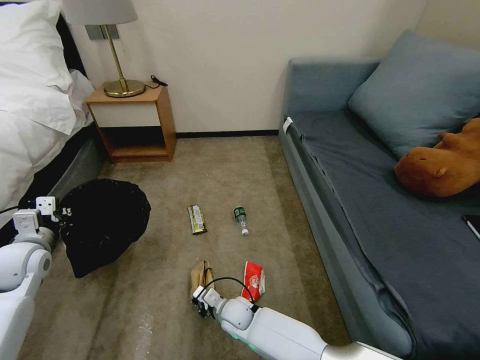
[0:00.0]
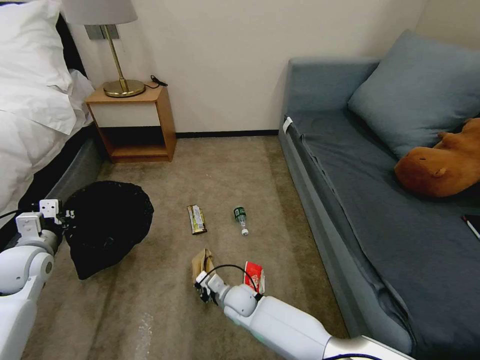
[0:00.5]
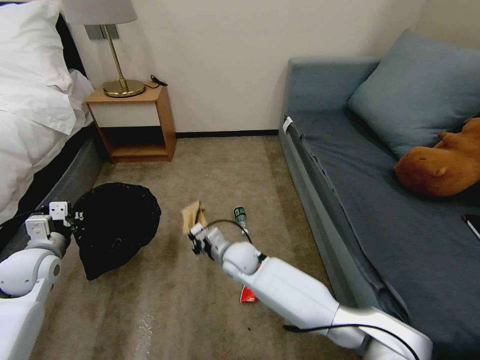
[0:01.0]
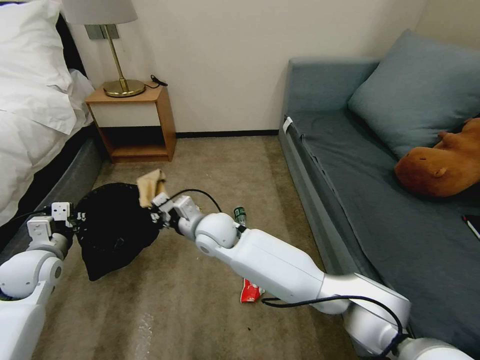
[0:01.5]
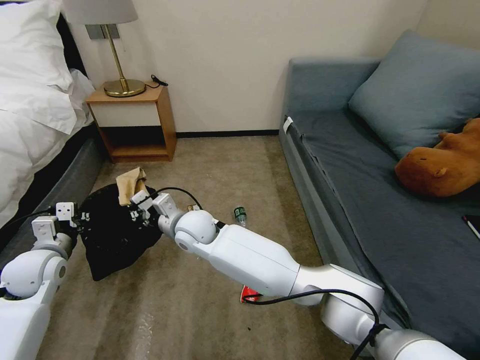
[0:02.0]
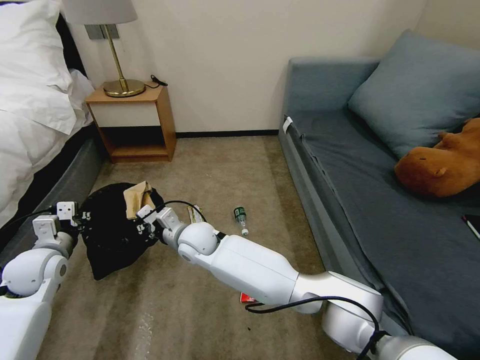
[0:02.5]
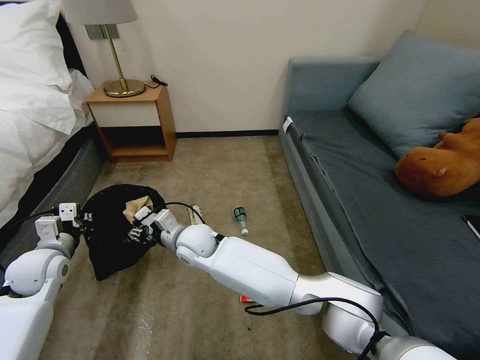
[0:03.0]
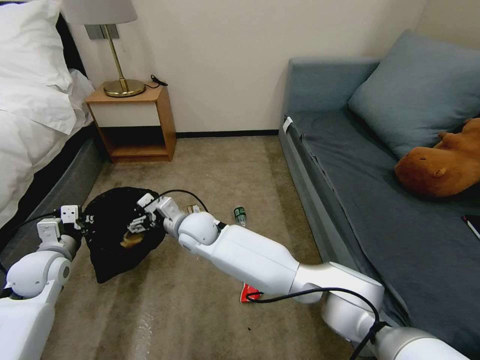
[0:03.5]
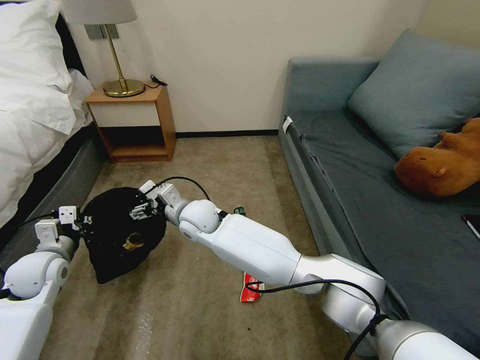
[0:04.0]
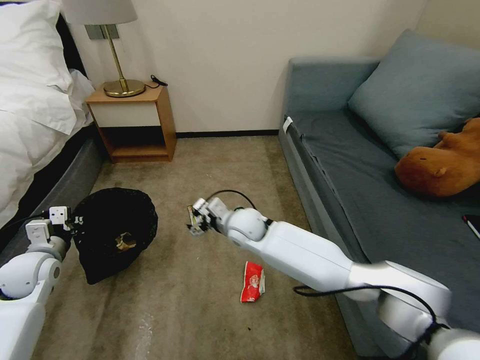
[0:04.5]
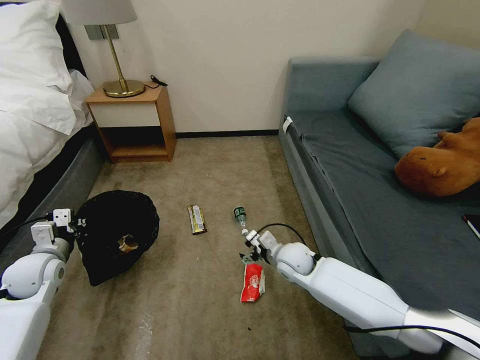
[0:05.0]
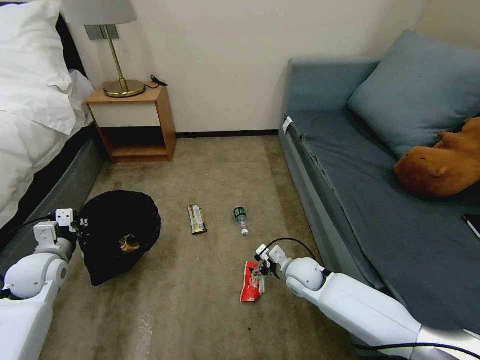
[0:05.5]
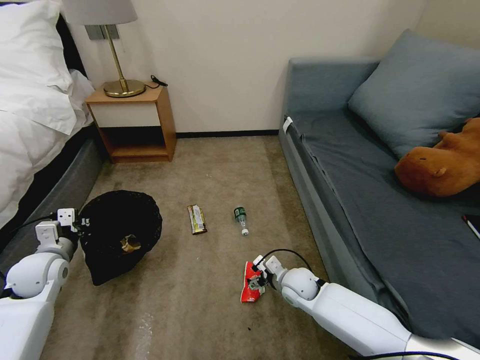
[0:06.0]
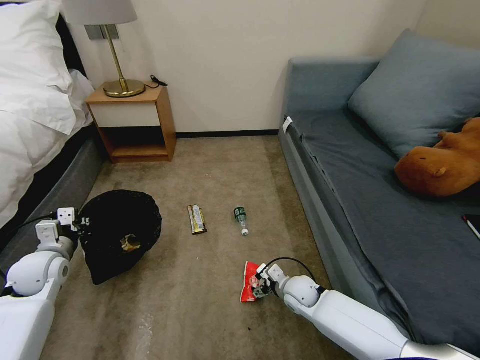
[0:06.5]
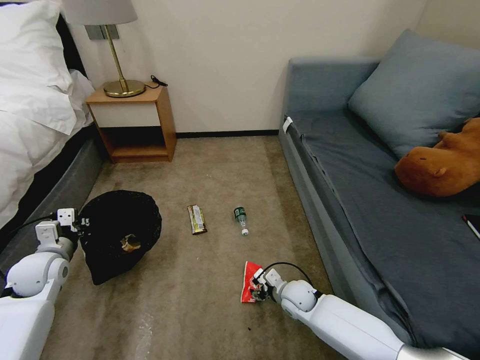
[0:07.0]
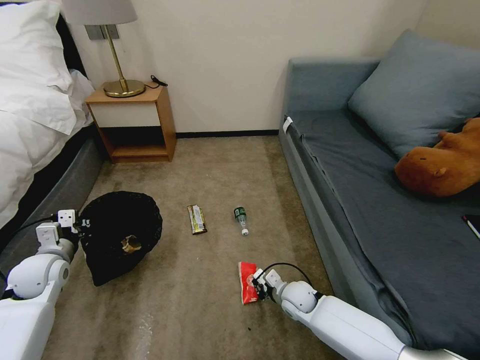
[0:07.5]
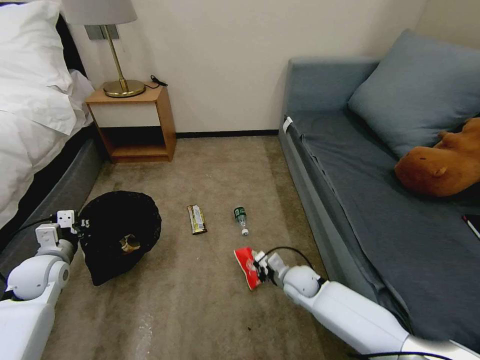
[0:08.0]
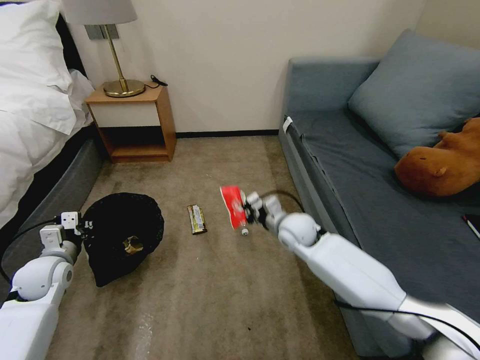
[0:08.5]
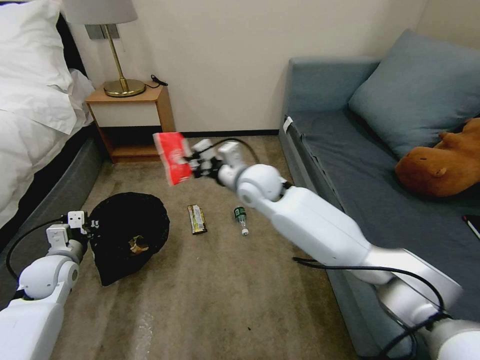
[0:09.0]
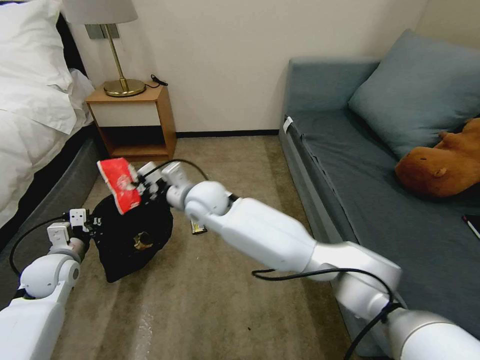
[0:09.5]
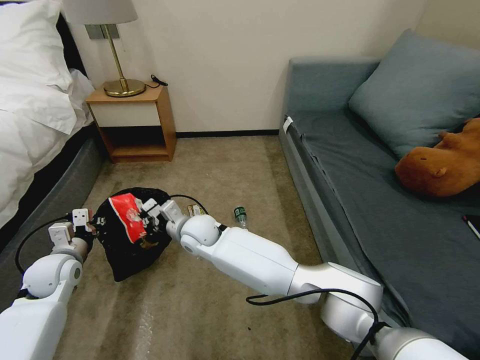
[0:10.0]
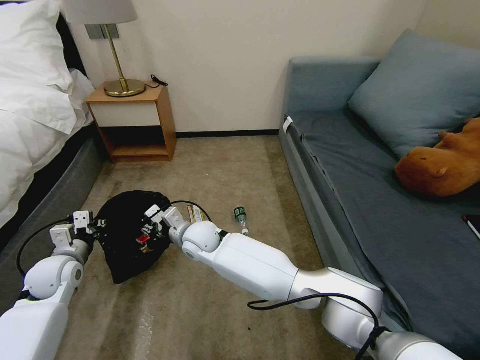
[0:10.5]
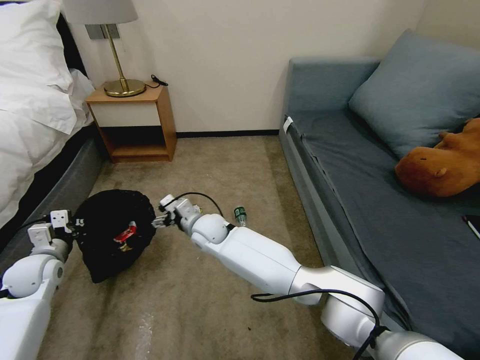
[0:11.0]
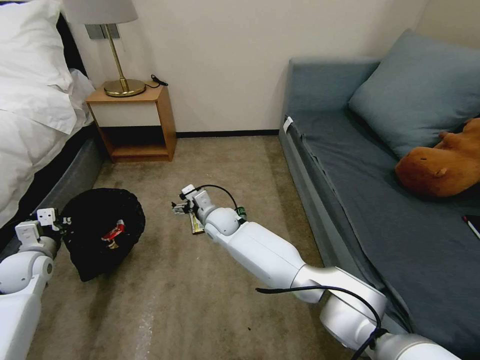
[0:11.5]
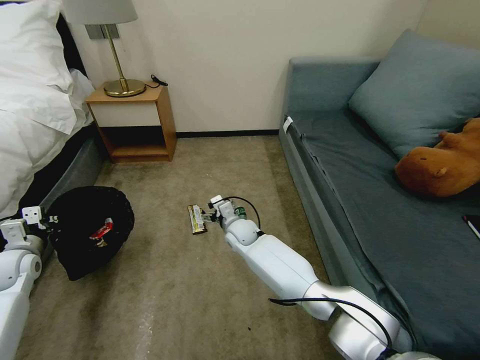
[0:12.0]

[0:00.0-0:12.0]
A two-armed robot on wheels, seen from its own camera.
Task of the whole recording: Pick up the trash bin, then pick up the garbage on the floor and place it into the trash bin.
0:00.0 to 0:02.0: The right gripper heads upward, forward and to the left, covering roughly 30 cm.
0:02.0 to 0:04.0: The right gripper opens its fingers.
0:04.0 to 0:06.0: The right gripper goes some 35 cm to the right and downward.
0:06.0 to 0:08.0: The right gripper closes up.
0:08.0 to 0:10.0: The right gripper goes approximately 30 cm to the left and upward.
0:10.0 to 0:12.0: The right gripper moves to the right, downward and forward, roughly 15 cm, and opens up, while the left gripper travels to the left by some 10 cm.

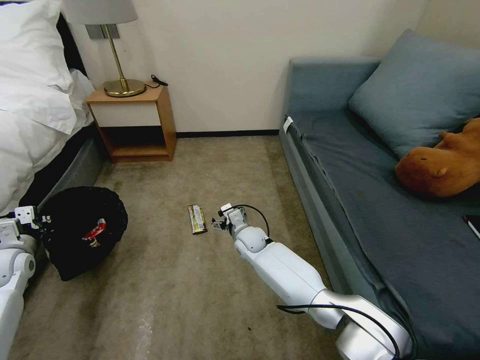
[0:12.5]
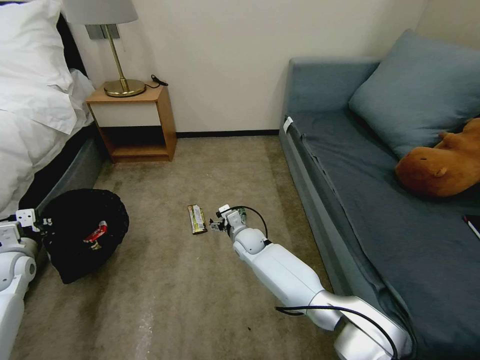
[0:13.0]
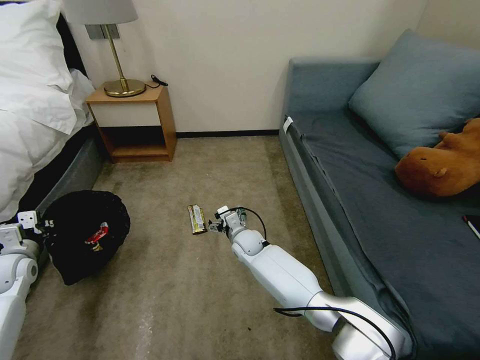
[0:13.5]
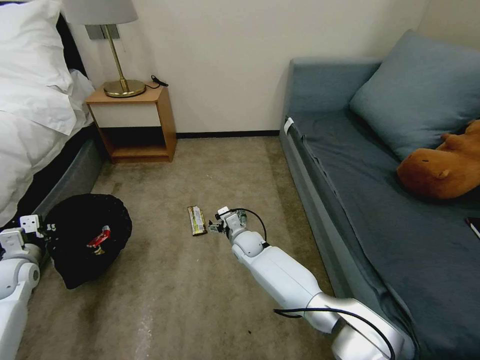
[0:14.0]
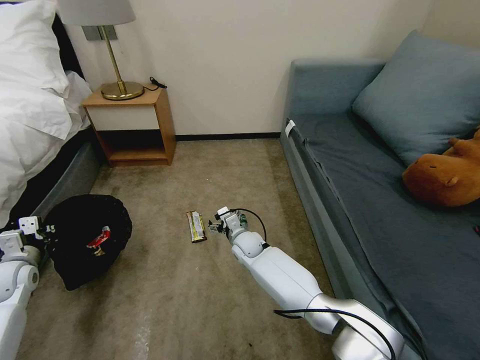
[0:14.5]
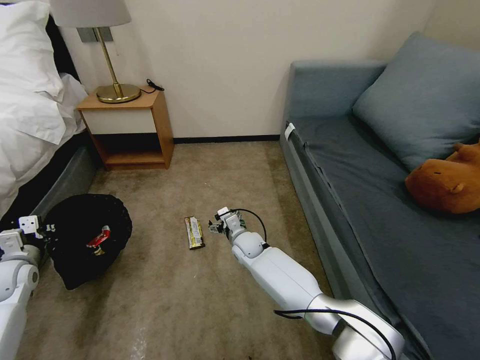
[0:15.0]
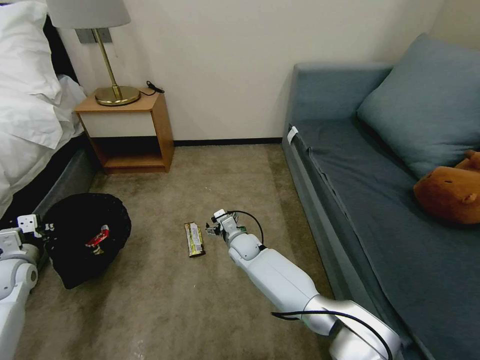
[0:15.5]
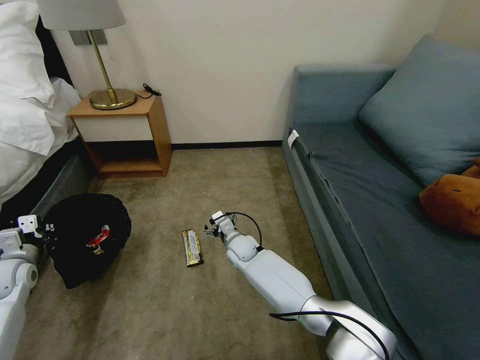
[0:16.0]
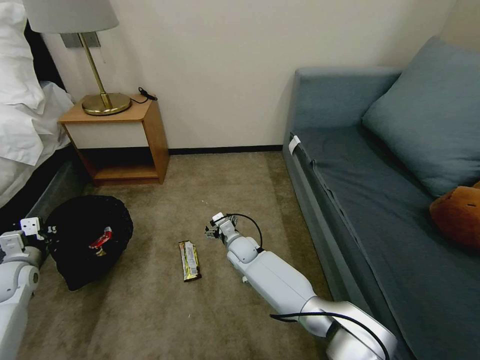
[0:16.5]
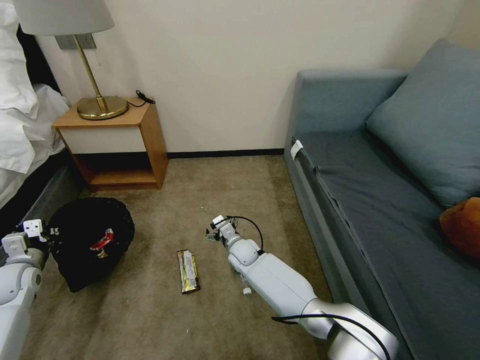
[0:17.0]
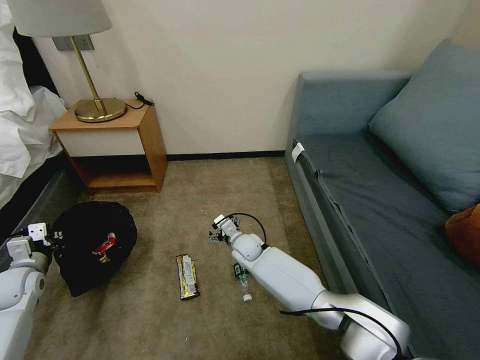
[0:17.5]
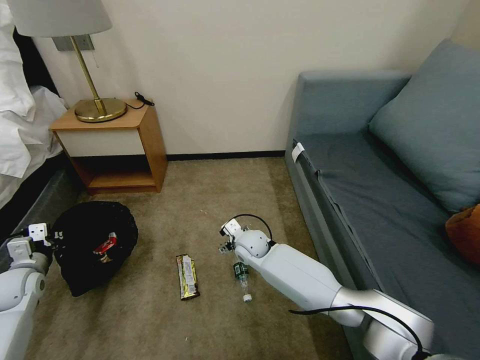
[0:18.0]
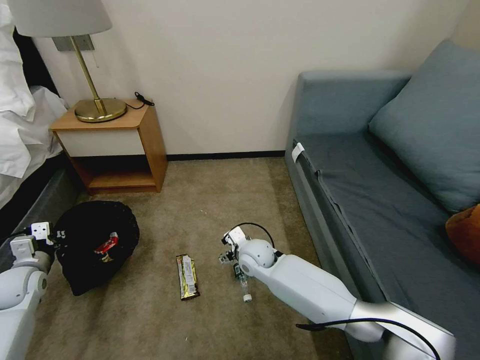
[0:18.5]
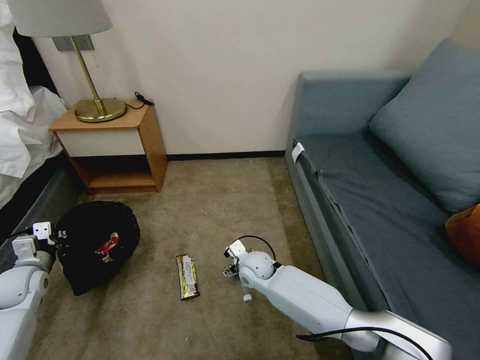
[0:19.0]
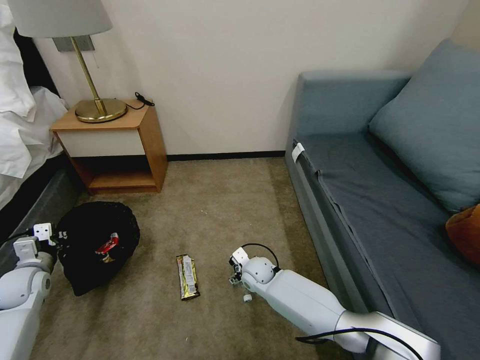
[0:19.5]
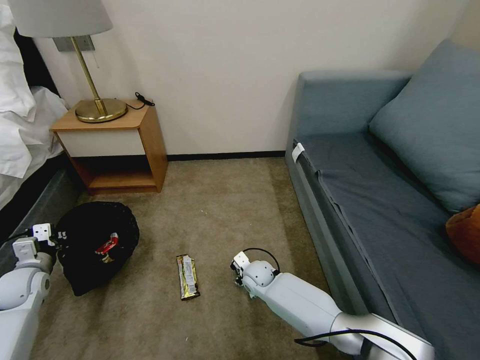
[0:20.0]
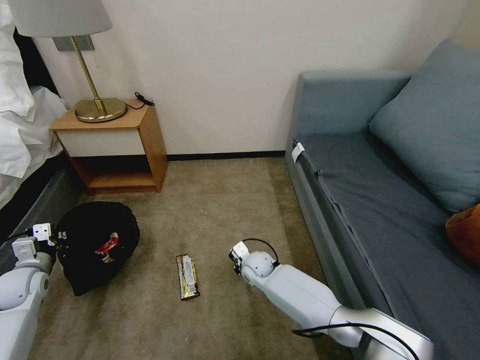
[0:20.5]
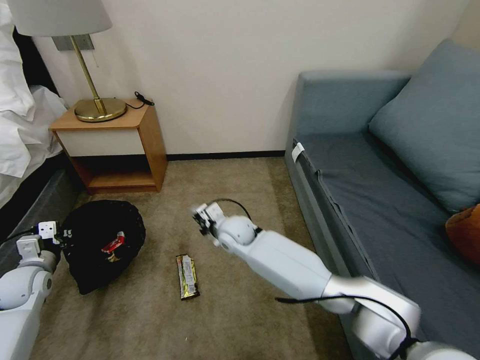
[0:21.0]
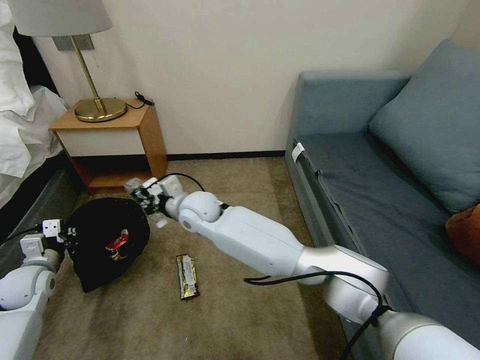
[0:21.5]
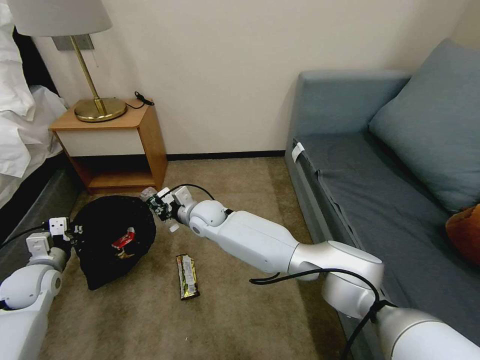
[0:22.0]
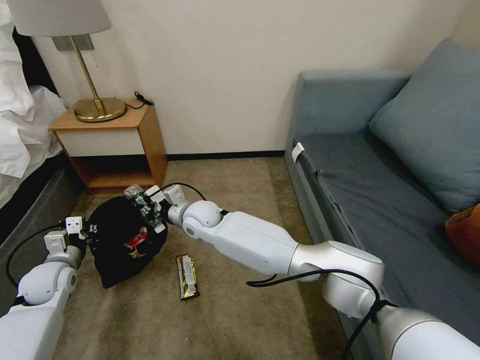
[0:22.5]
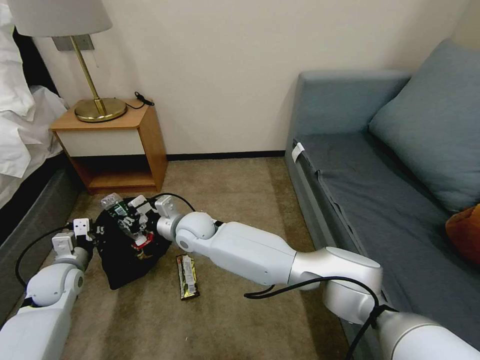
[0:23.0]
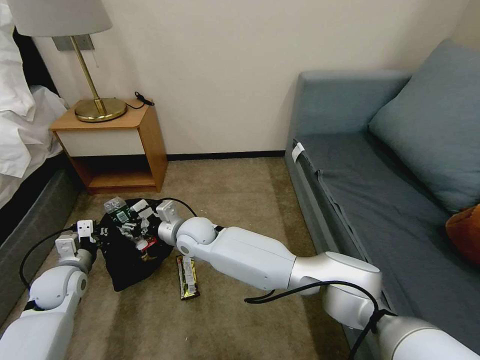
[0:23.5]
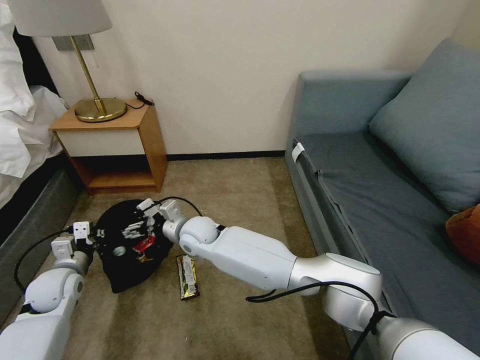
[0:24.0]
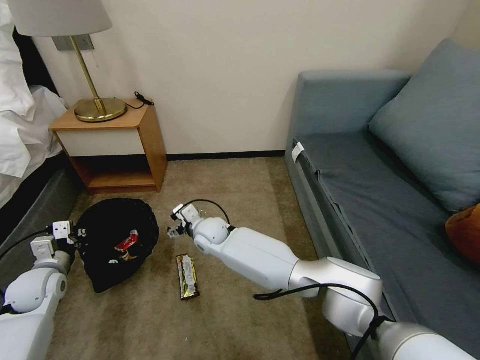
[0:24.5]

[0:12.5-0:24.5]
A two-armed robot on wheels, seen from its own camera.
Task of the whole recording: Pick up the trash bin, then pick up the garbage on the floor and place it into the trash bin.
0:12.5 to 0:14.5: The grippers move only a little.
0:16.5 to 0:18.5: The right gripper is displaced upward and backward by about 10 cm.
0:18.5 to 0:20.5: The right gripper goes roughly 10 cm downward, and closes.
0:20.5 to 0:22.5: The right gripper shifts roughly 25 cm upward and to the left; the left gripper heads to the right, covering approximately 5 cm.
0:22.5 to 0:24.5: The right gripper goes approximately 5 cm downward, and opens.

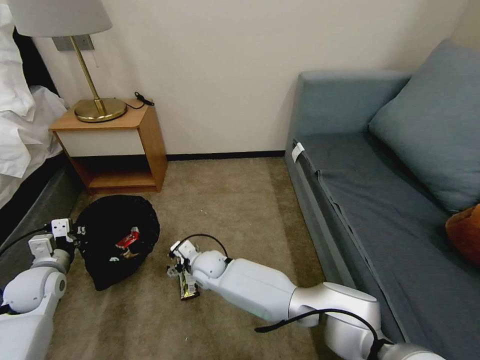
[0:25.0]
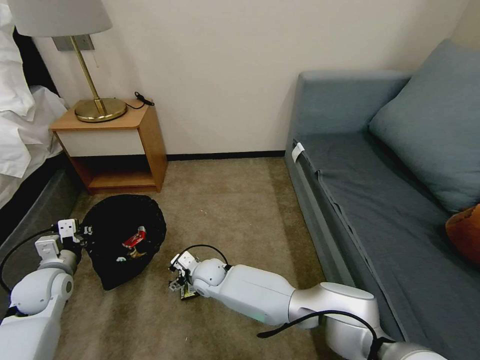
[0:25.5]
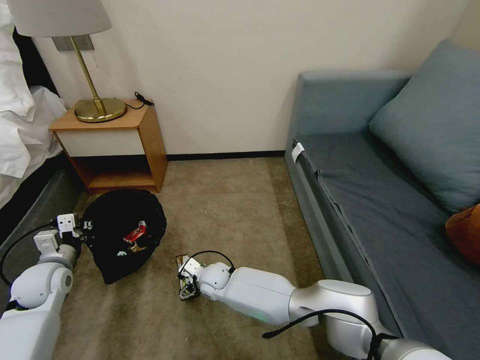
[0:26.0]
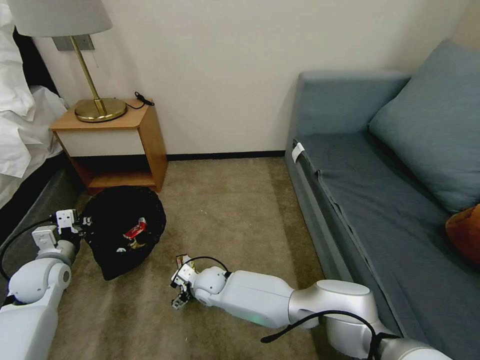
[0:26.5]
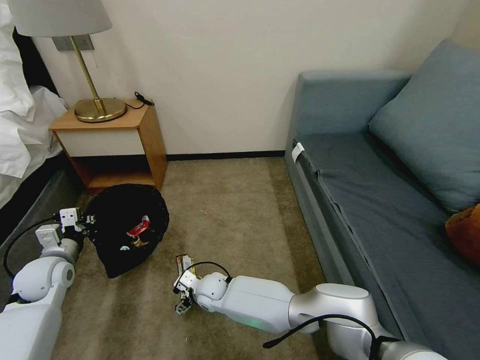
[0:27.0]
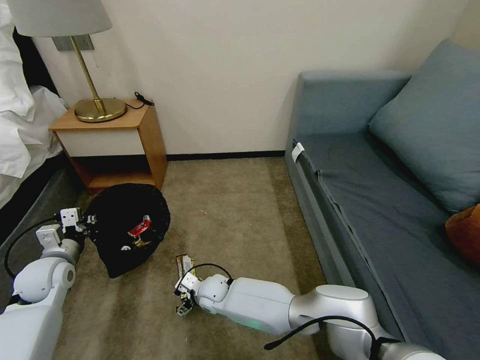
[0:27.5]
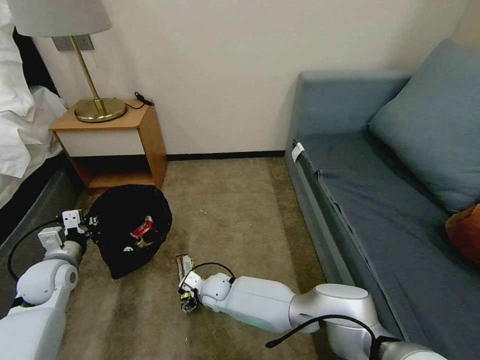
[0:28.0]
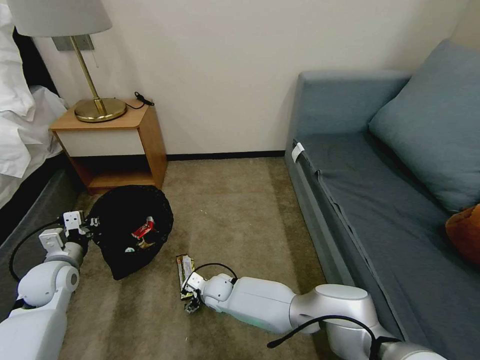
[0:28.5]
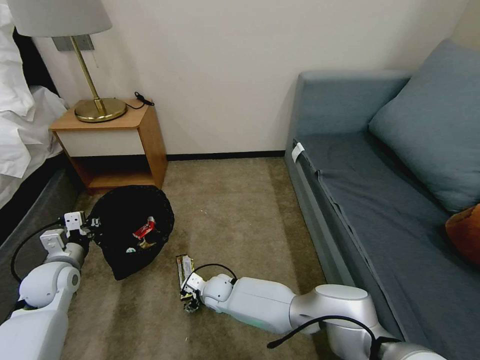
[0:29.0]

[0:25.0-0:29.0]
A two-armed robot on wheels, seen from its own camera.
Task of the whole recording: Pick up the trash bin, then pick up the garbage on the floor and place it into the trash bin.
0:25.0 to 0:27.0: The right gripper shifts about 5 cm downward.
0:27.0 to 0:29.0: There are only small adjustments of the grippers.
